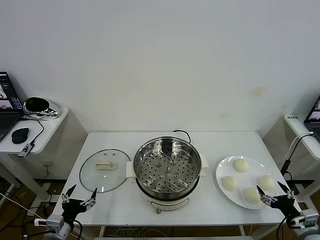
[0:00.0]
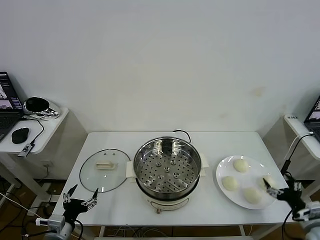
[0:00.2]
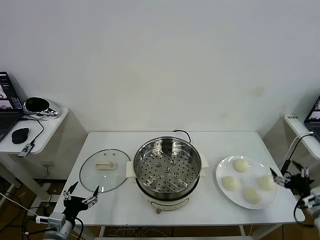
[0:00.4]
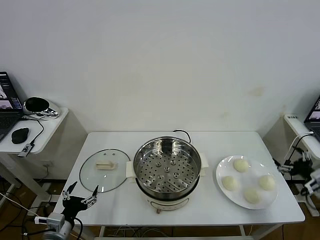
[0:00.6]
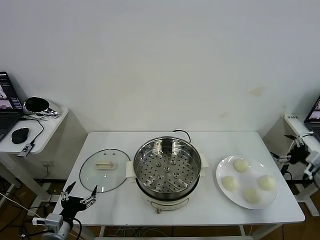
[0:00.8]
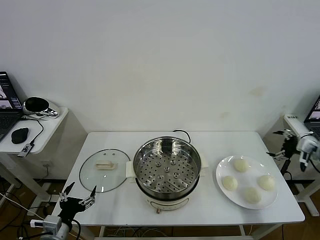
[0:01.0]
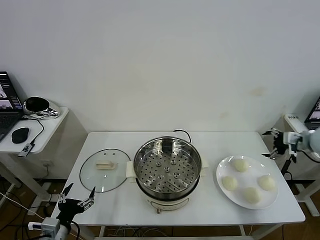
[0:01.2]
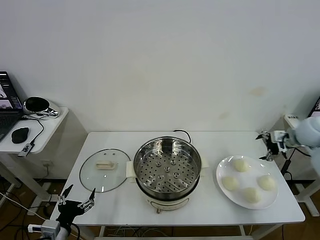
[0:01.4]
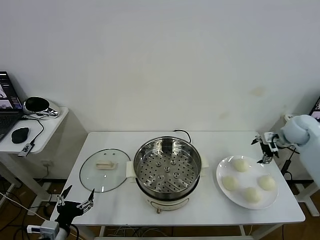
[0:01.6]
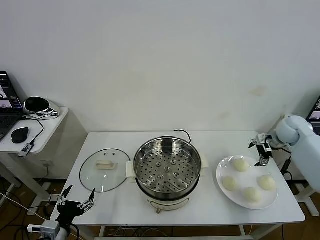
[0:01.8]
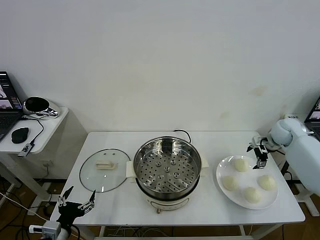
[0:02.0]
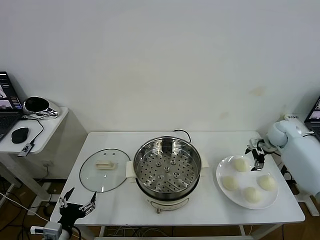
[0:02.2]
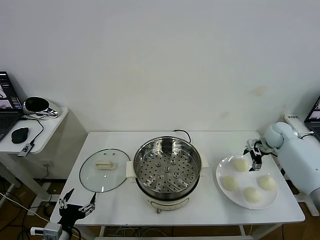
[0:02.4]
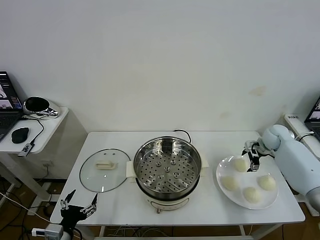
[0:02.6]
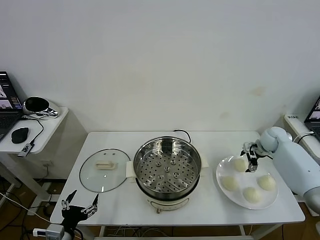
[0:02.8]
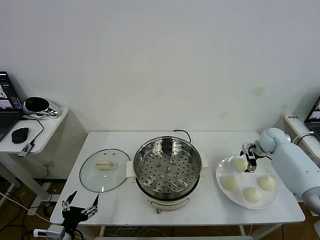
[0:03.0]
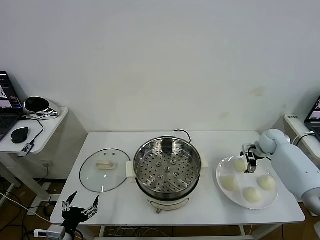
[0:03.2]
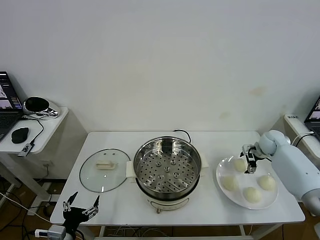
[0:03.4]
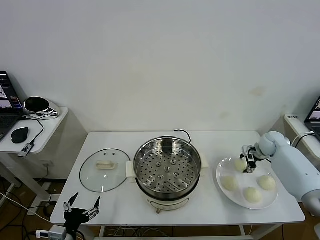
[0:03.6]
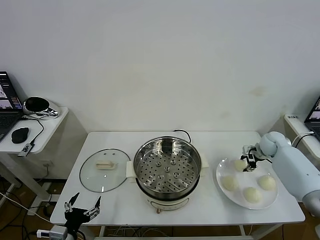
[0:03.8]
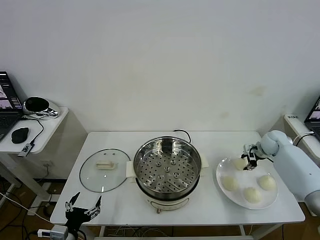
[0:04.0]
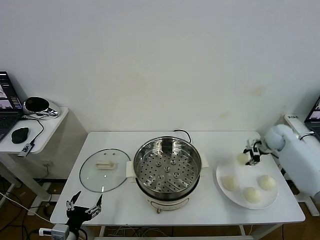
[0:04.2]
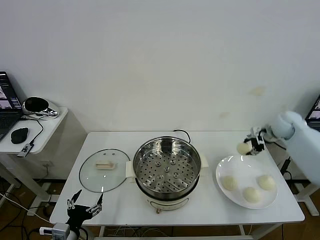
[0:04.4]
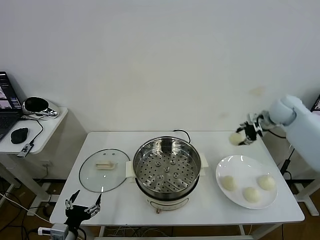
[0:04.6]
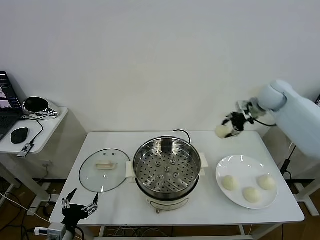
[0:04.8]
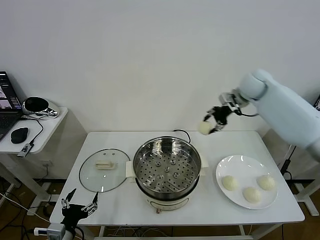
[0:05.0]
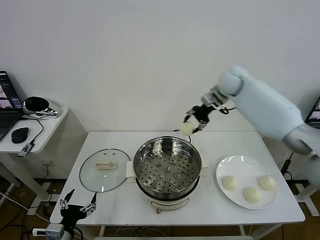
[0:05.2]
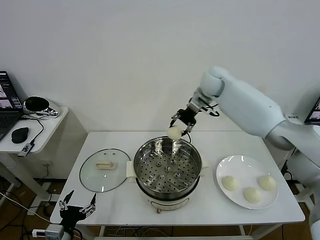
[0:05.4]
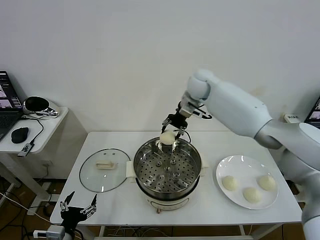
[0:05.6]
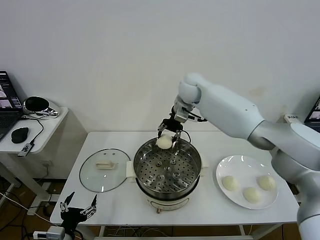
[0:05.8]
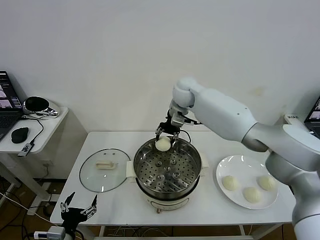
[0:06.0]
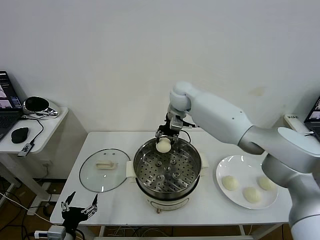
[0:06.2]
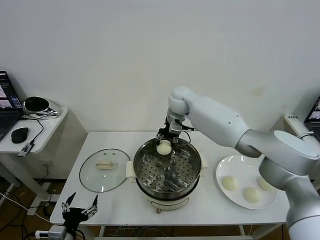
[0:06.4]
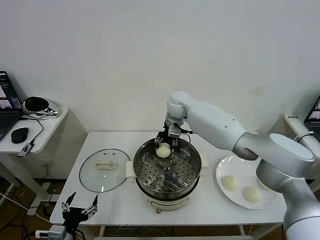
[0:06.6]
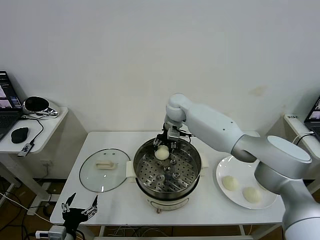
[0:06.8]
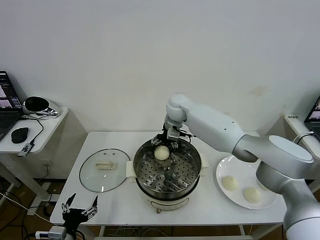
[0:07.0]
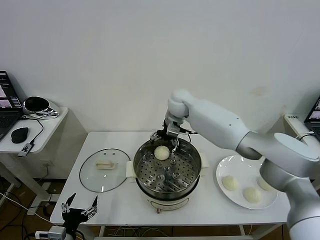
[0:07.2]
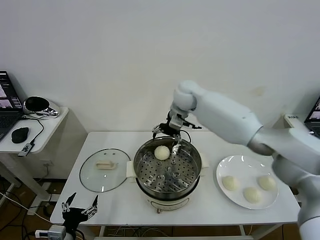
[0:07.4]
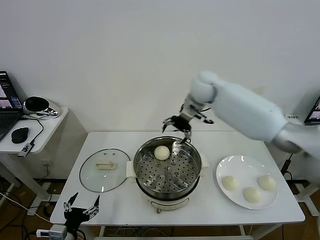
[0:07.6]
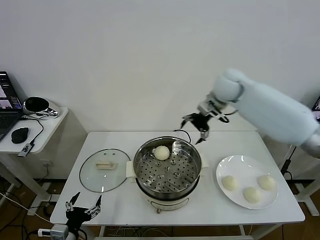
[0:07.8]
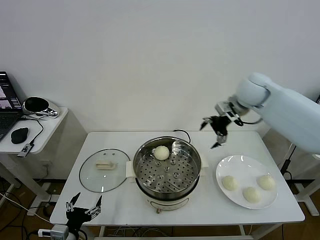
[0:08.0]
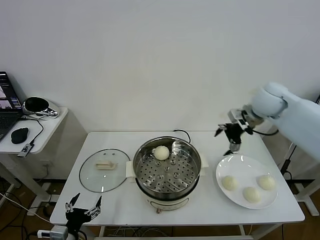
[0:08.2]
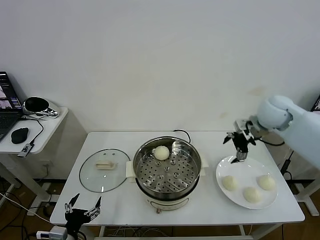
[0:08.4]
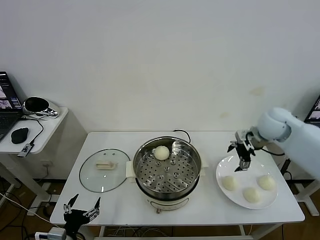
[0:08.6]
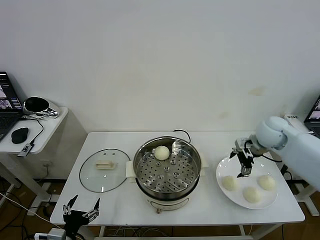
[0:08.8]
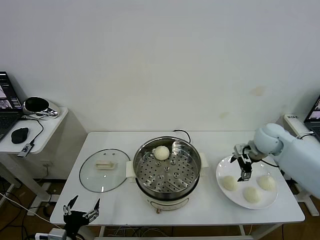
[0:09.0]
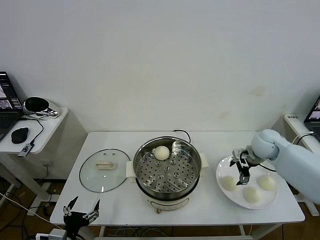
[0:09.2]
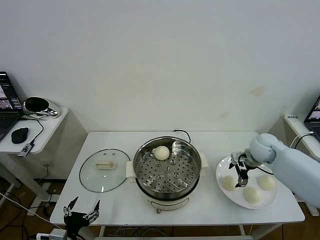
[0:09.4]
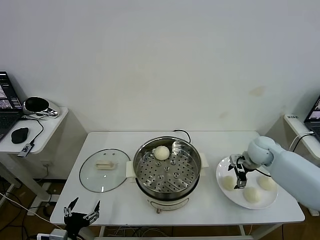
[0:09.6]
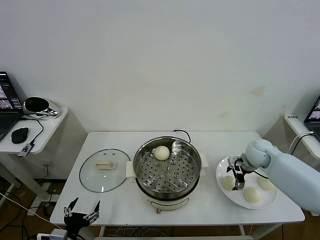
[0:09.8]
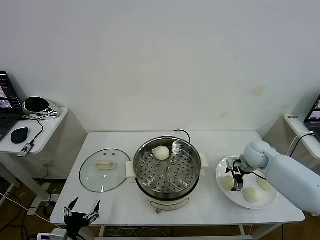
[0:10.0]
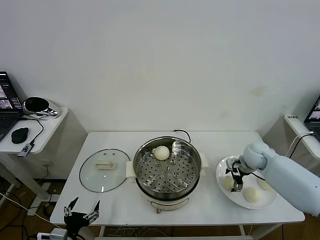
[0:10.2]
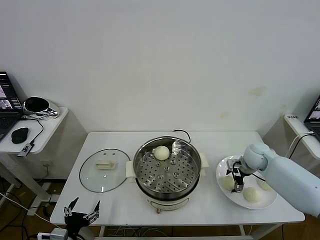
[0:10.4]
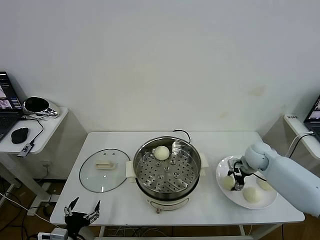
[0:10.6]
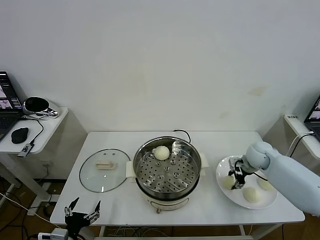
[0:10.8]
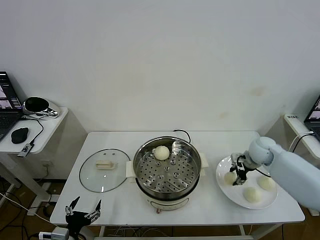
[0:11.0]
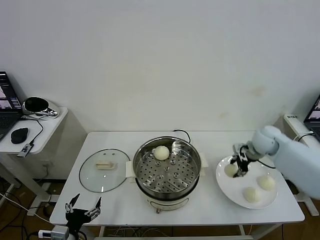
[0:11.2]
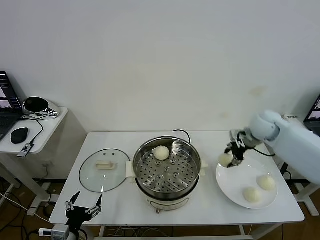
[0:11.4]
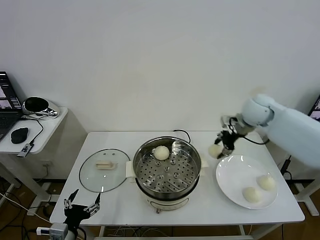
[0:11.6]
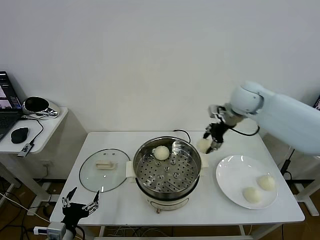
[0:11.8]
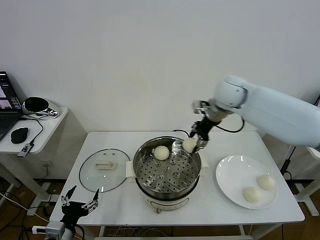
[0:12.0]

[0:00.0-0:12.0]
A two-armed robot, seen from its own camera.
Task of the whole recording: take steamed baozi put them in steamer then cover it.
Step, 0:00.0 to 0:03.8: Grasp the baozi in the plate with right gripper.
Step, 0:04.0 to 0:07.0: Place the baozi on the steamer with right gripper.
Step, 0:07.2 to 0:10.6: Grasp the baozi in the plate with right gripper.
0:01.6 to 0:03.0: The right gripper goes some 10 cm downward.
0:03.0 to 0:04.4: The right gripper heads upward, covering roughly 15 cm, and closes its fingers.
0:04.4 to 0:06.0: The right gripper heads to the left, covering about 35 cm.
0:06.0 to 0:07.6: The right gripper moves to the right and upward, some 15 cm, and opens up.
0:07.6 to 0:09.0: The right gripper is displaced to the right, downward and backward by roughly 25 cm.
0:09.0 to 0:10.4: The right gripper moves downward, approximately 10 cm.
0:10.4 to 0:12.0: The right gripper heads upward and to the left, covering roughly 30 cm, and closes up.

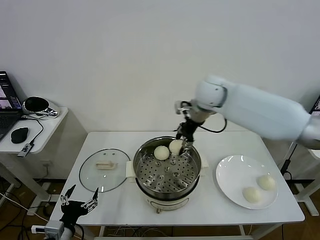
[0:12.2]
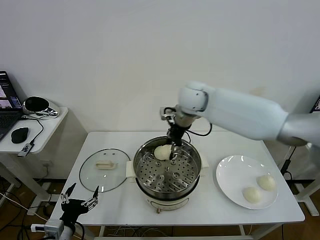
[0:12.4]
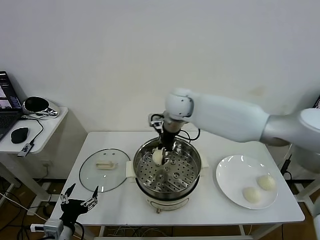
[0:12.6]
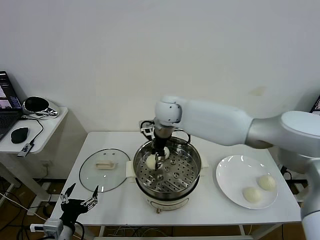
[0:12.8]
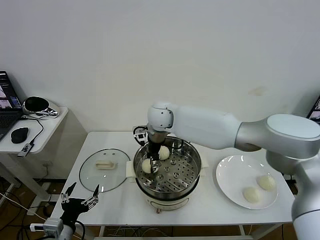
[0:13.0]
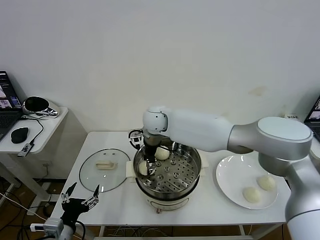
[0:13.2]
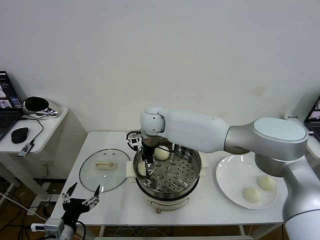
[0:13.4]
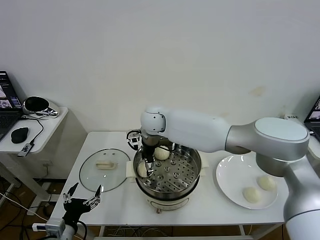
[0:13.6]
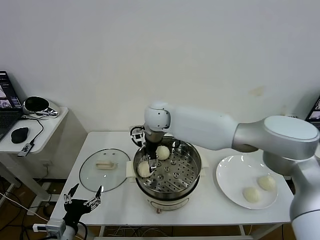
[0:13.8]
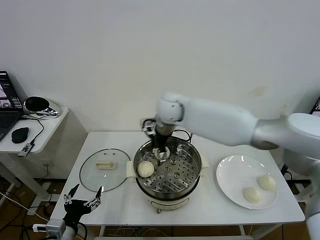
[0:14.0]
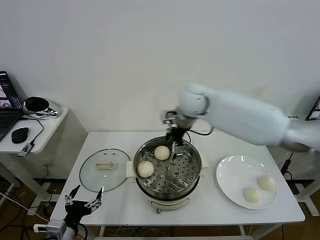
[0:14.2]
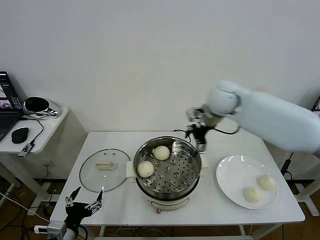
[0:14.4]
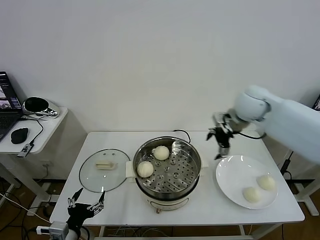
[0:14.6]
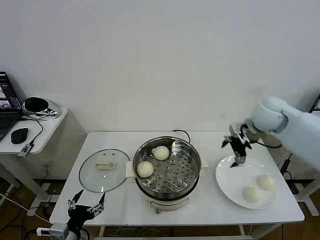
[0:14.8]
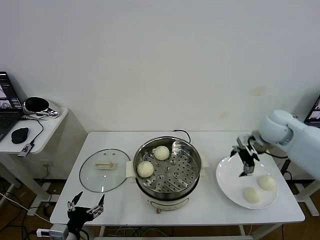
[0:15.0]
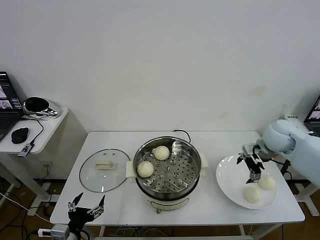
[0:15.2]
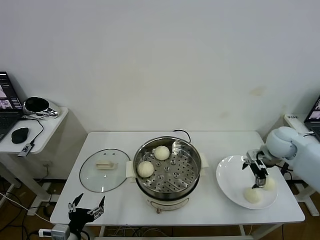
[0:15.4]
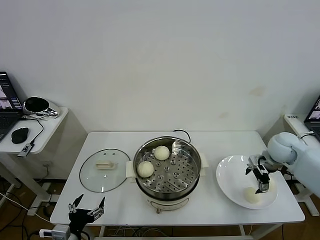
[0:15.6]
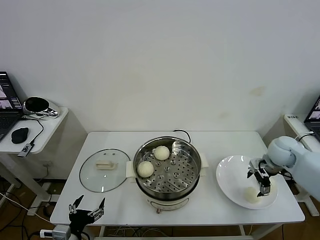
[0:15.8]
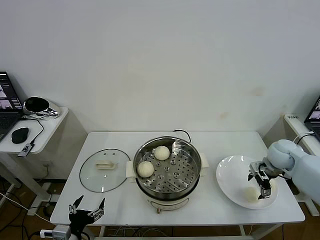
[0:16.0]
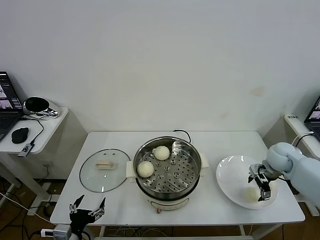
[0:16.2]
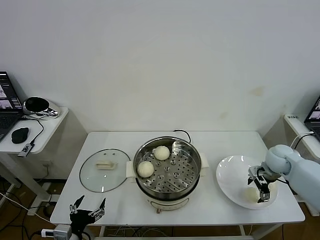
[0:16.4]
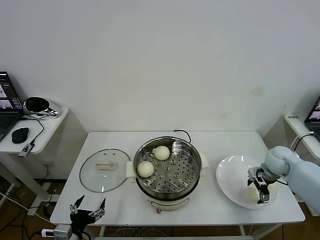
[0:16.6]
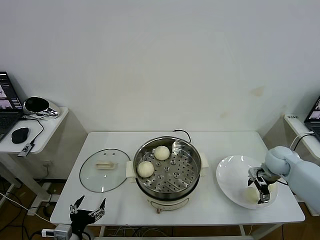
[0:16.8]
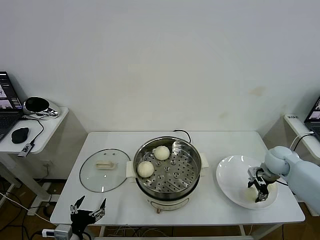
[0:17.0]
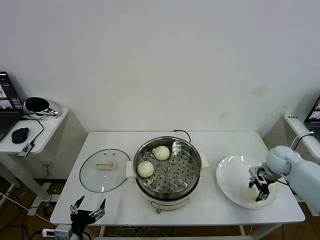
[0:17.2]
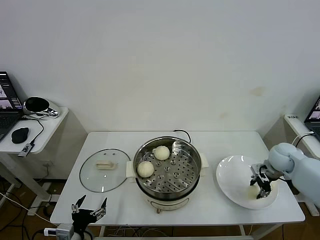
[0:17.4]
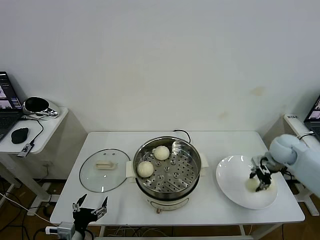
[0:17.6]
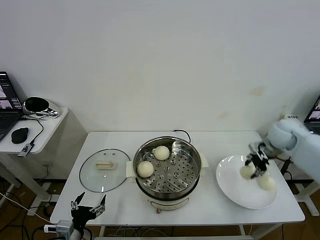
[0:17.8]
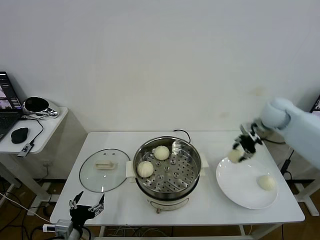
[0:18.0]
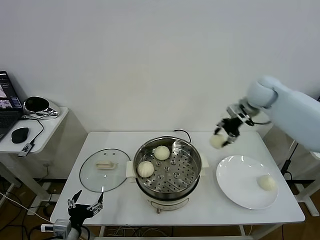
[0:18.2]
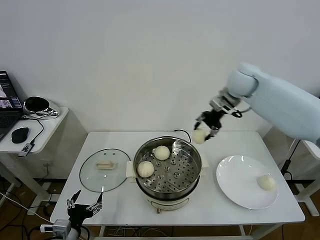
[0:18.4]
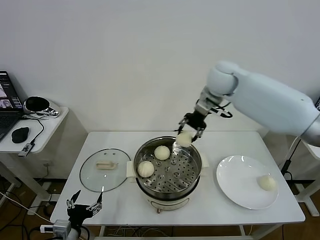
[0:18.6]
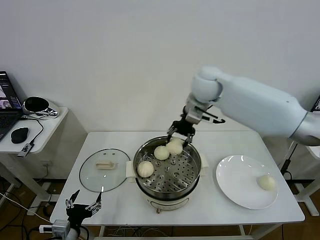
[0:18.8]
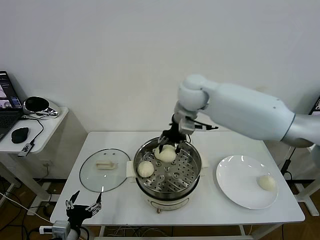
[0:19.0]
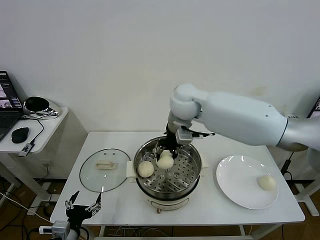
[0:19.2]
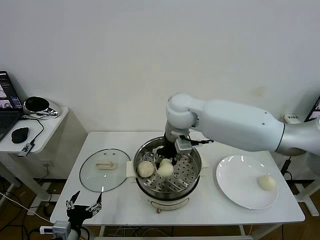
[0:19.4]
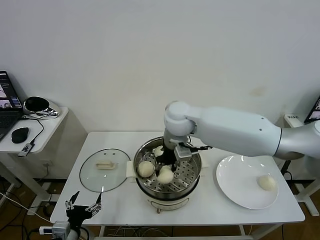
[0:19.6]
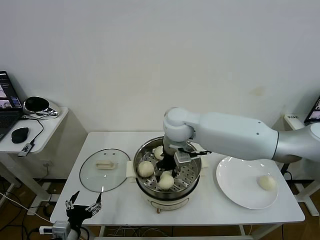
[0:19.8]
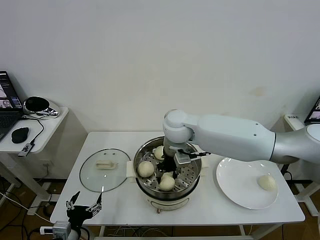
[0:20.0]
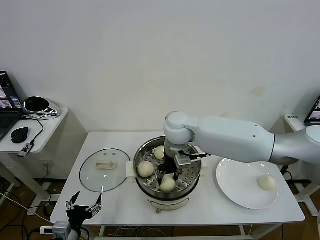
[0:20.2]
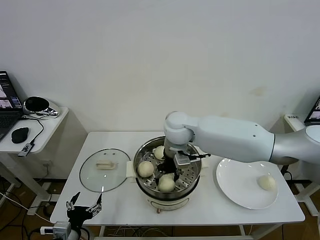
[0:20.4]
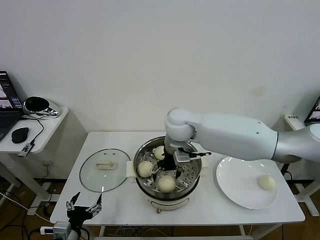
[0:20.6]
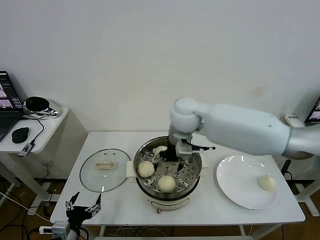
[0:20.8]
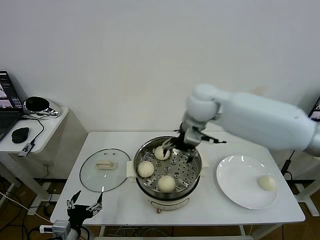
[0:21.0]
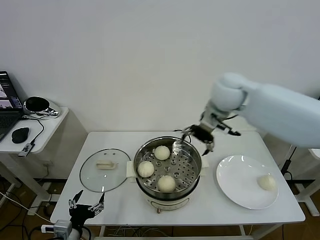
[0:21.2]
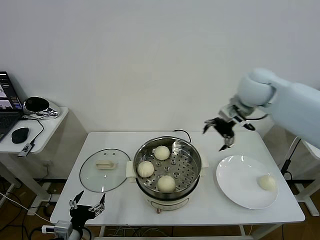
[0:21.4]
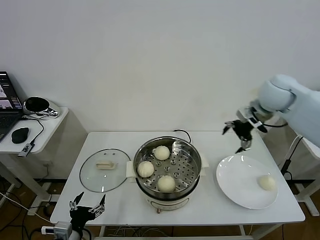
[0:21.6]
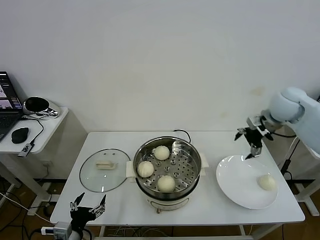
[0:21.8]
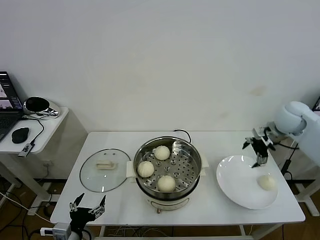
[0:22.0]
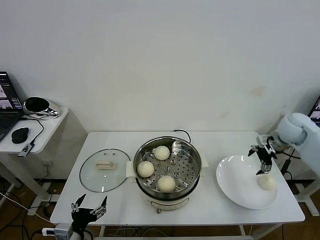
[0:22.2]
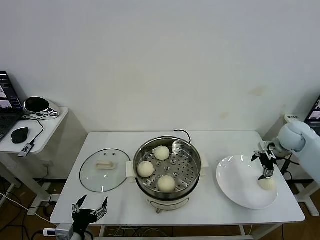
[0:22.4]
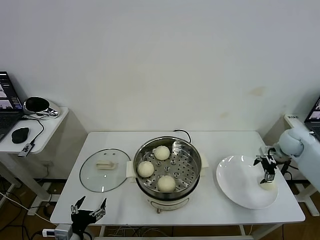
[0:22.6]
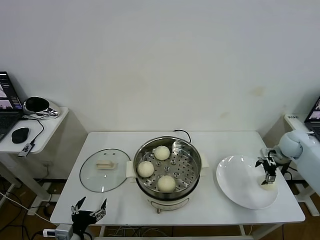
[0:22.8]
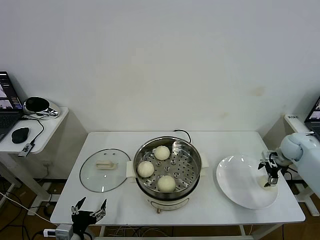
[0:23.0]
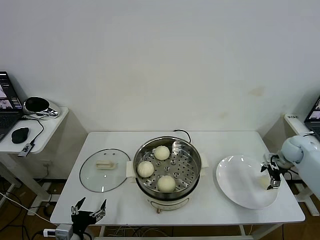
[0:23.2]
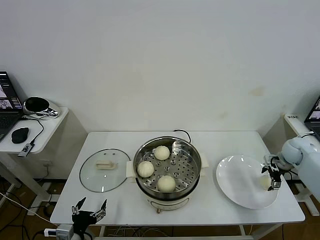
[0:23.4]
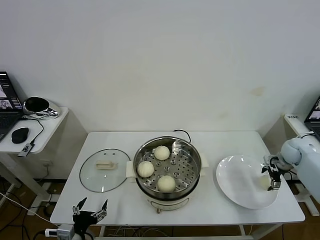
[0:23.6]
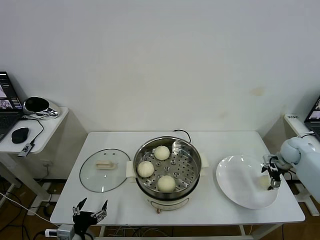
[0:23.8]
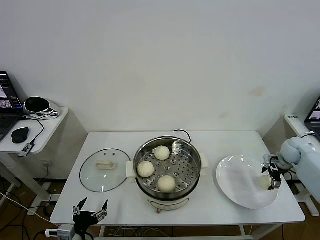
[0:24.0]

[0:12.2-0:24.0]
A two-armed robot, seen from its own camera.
Task of the whole recording: take steamed baozi put them in steamer then cover it.
Step, 0:13.8 to 0:17.0: Grasp the baozi in the plate with right gripper.
Step, 0:17.4 to 0:20.6: Place the baozi on the steamer with right gripper.
0:12.2 to 0:13.6: The right gripper is displaced to the left and downward by approximately 15 cm, and opens.
0:13.6 to 0:15.2: The right gripper moves to the right, about 40 cm.
0:15.2 to 0:16.6: The right gripper heads downward, covering some 10 cm.
0:16.6 to 0:18.2: The right gripper goes roughly 30 cm upward, to the left and forward, and closes up.
0:18.2 to 0:19.6: The right gripper is displaced to the left by roughly 25 cm.
0:19.6 to 0:21.0: The right gripper moves to the right and upward, some 10 cm, and opens its fingers.
0:21.0 to 0:22.6: The right gripper is displaced to the right and downward by some 40 cm.
0:22.6 to 0:24.0: The right gripper moves about 5 cm.
